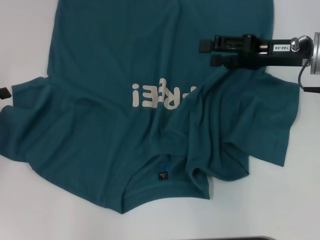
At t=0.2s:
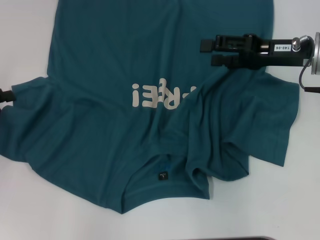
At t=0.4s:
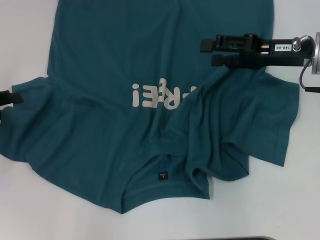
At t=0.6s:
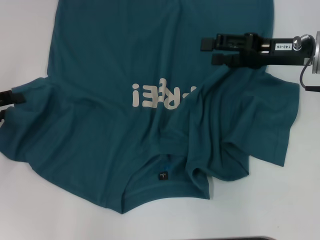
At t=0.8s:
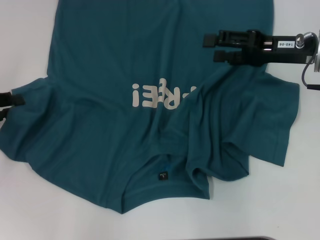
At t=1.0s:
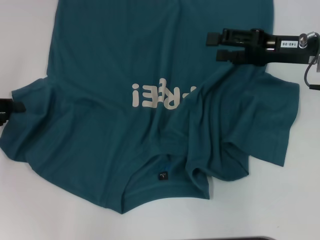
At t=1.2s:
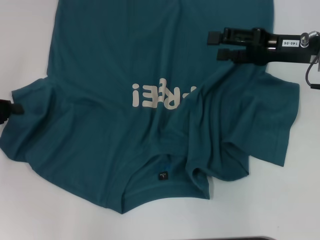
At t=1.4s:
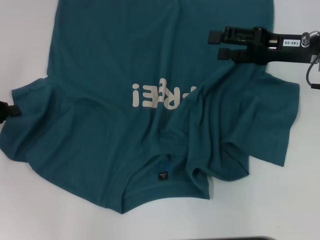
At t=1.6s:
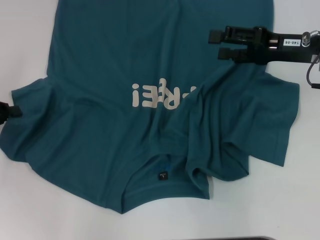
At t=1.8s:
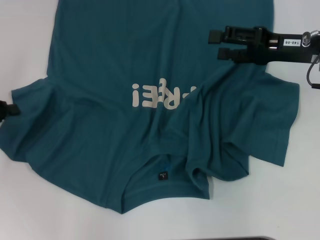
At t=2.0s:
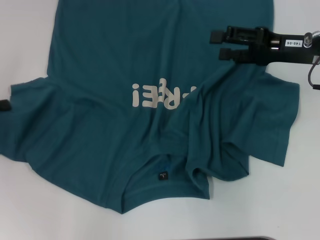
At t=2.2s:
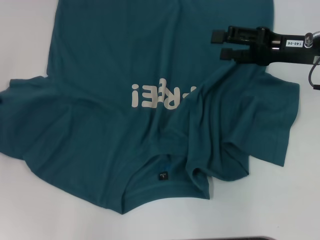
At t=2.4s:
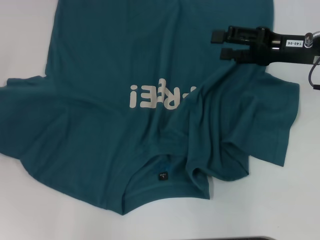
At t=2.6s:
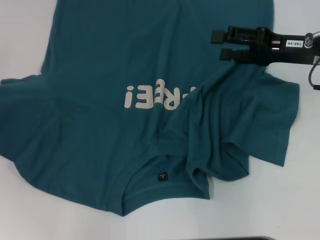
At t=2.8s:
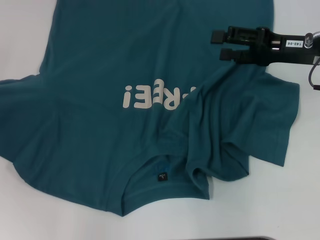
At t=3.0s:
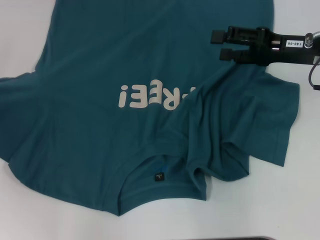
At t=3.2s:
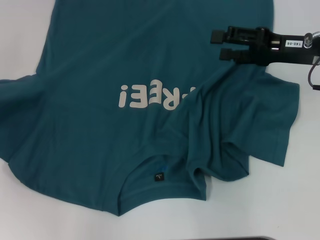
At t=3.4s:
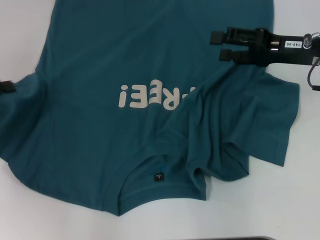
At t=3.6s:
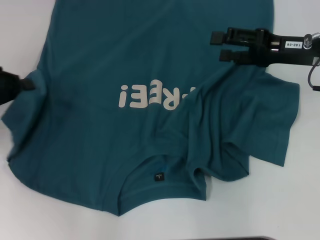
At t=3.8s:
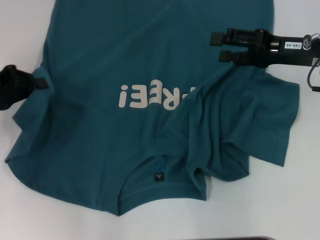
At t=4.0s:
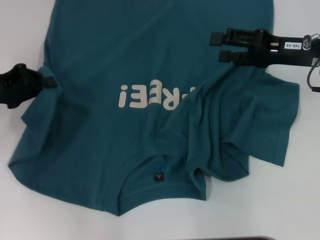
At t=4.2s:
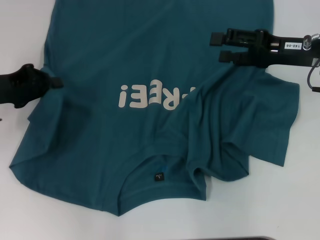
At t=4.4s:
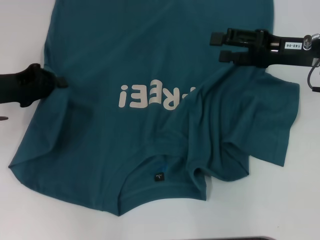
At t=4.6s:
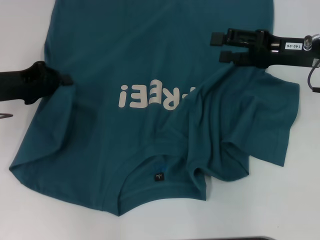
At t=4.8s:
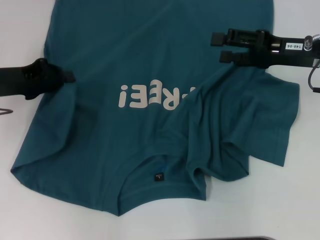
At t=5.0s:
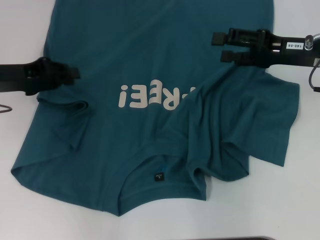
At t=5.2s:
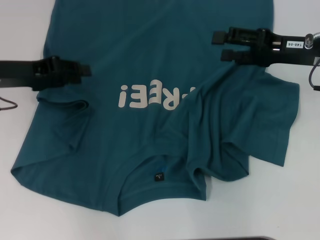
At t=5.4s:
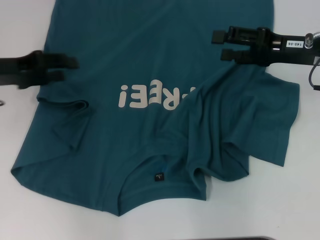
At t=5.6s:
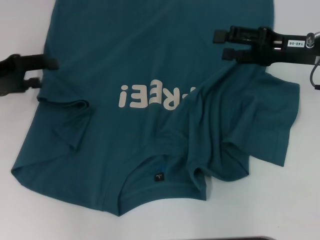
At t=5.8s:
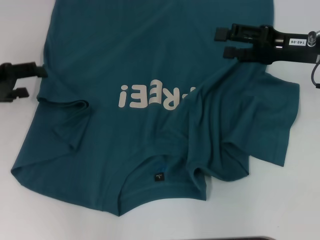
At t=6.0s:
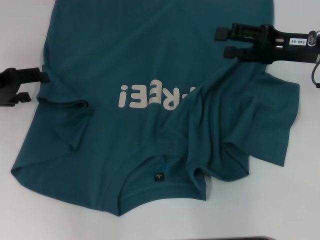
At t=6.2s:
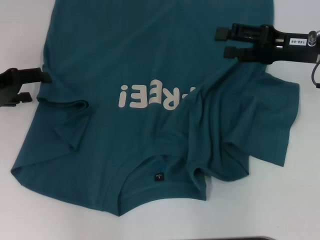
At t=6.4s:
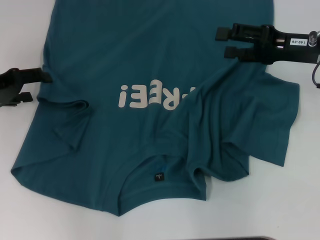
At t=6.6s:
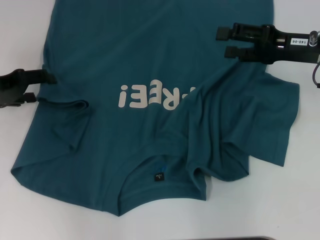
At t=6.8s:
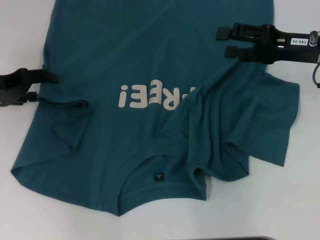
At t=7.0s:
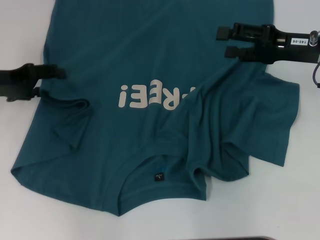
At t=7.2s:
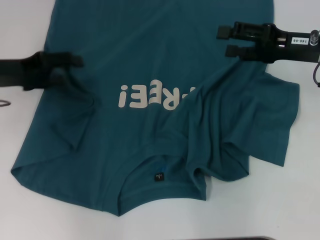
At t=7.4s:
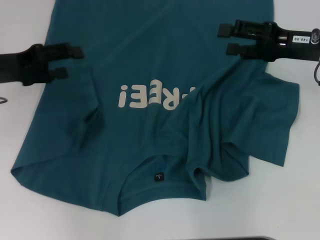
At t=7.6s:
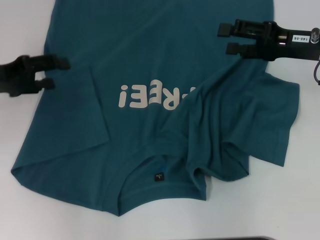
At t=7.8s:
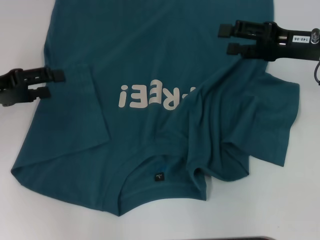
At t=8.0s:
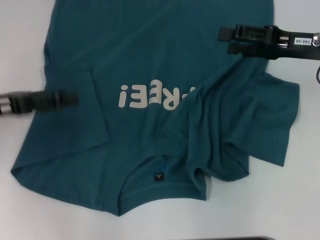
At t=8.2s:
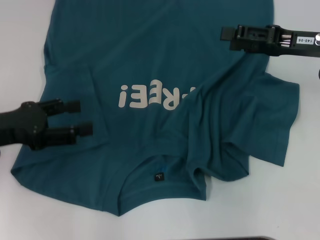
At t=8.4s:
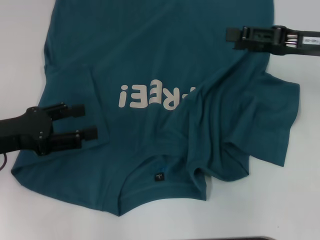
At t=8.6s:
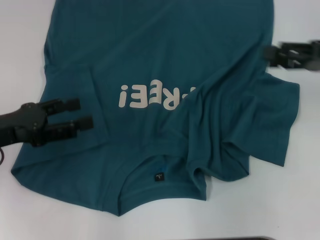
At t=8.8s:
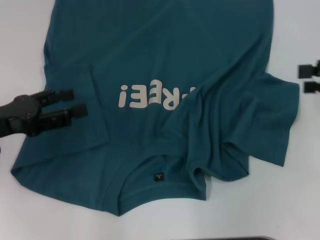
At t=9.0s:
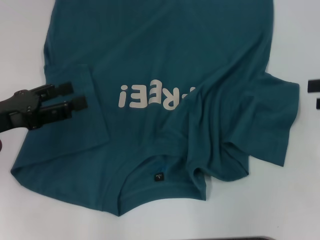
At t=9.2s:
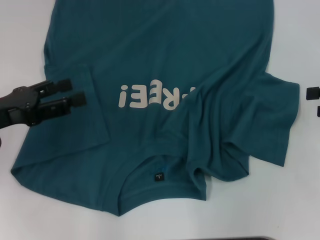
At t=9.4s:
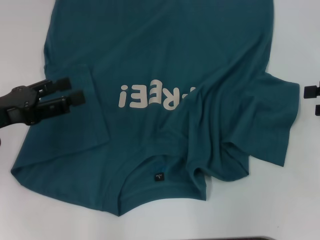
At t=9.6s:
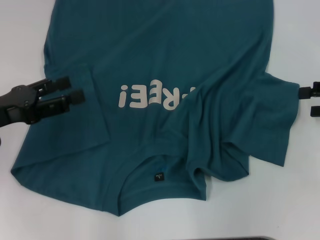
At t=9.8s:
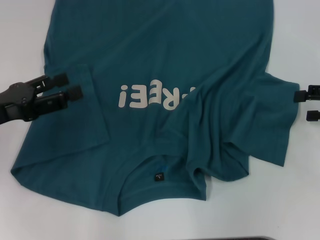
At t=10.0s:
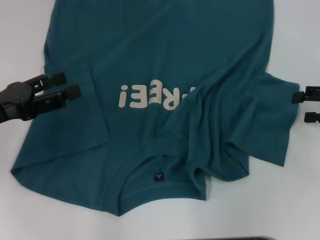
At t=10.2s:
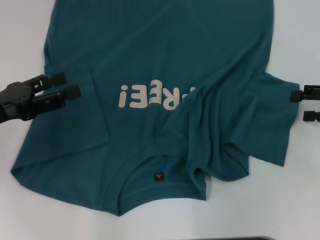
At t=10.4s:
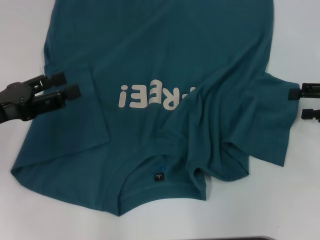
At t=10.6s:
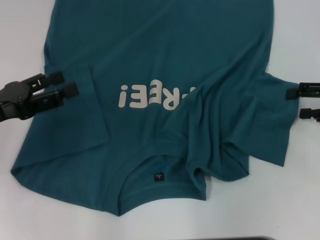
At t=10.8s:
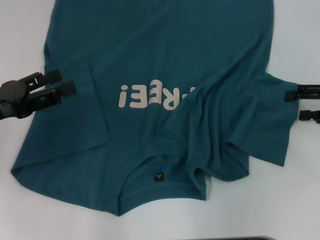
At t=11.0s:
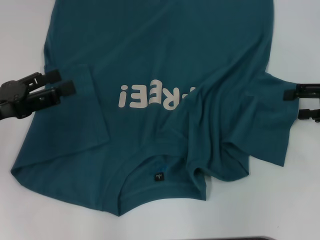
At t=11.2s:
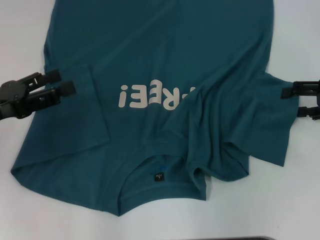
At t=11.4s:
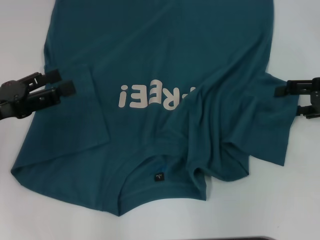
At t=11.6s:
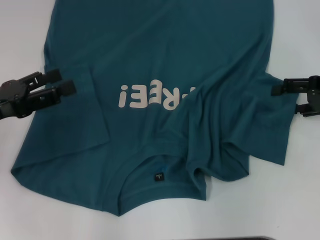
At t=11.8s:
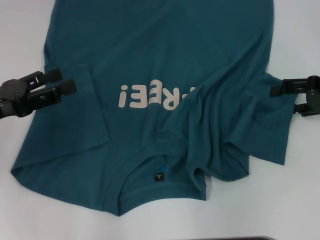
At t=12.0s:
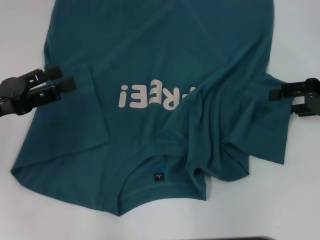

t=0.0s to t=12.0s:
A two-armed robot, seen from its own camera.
Step, t=0.0s to t=5.2s: Fold the bottom left sleeve with your left hand.
t=0.0s to t=1.6s: The left gripper closes its fingers.
t=1.6s to t=3.0s: The left gripper changes place by about 5 cm.
t=3.0s to t=4.4s: The left gripper is displaced to the right by roughly 10 cm.
t=4.4s to t=6.0s: The left gripper opens.
t=6.0s to t=7.6s: The grippers move only a little.
t=7.6s to t=9.0s: The right gripper goes roughly 15 cm to the right and backward, while the left gripper moves backward, some 5 cm.
t=9.0s to t=10.4s: The grippers make only small movements.
t=10.4s to t=12.0s: The grippers make only small movements.

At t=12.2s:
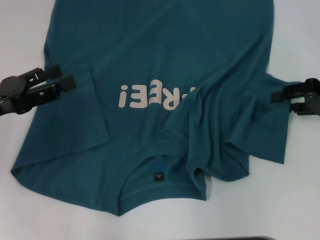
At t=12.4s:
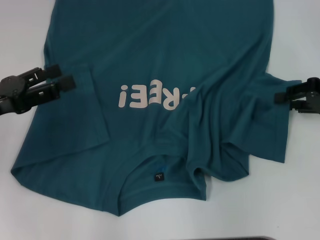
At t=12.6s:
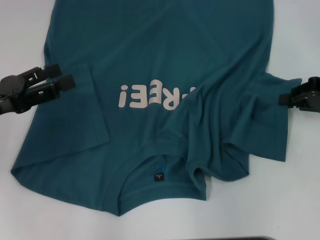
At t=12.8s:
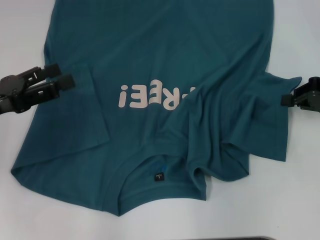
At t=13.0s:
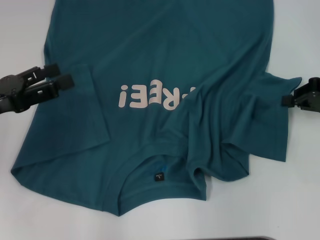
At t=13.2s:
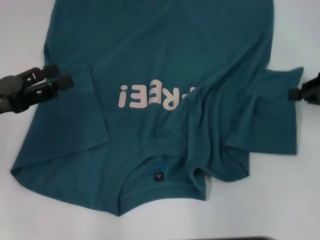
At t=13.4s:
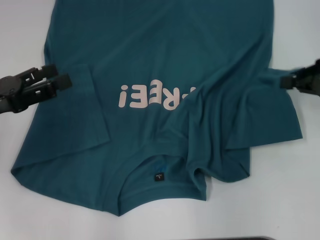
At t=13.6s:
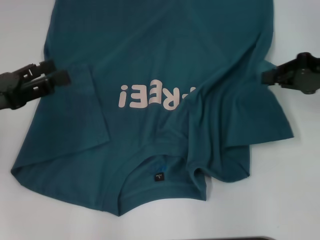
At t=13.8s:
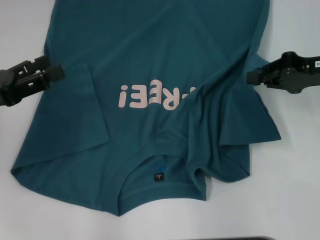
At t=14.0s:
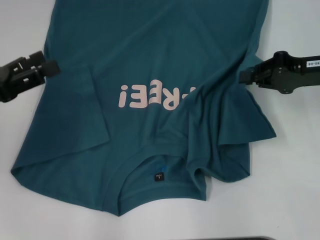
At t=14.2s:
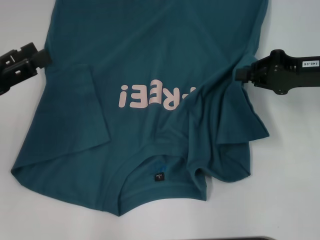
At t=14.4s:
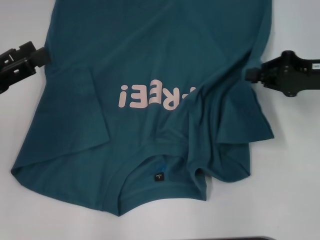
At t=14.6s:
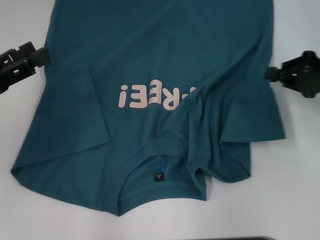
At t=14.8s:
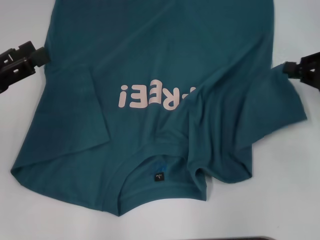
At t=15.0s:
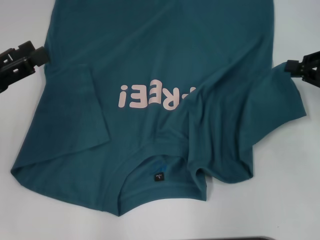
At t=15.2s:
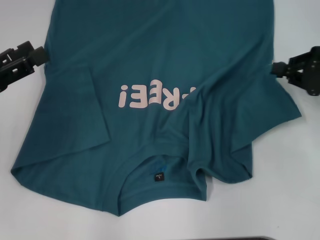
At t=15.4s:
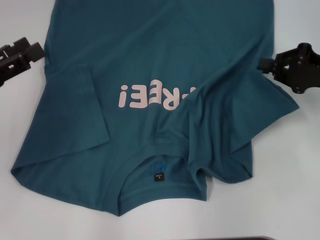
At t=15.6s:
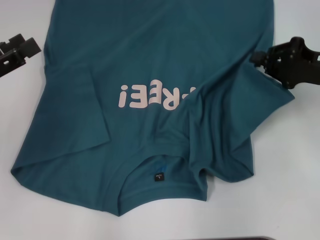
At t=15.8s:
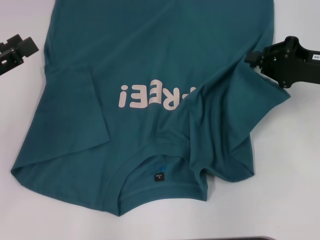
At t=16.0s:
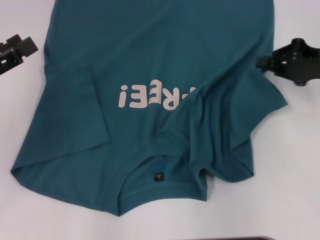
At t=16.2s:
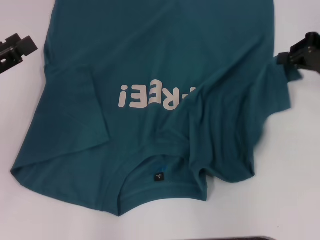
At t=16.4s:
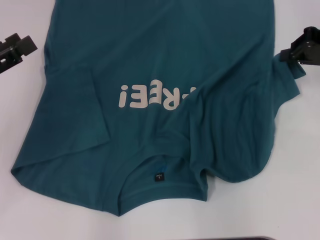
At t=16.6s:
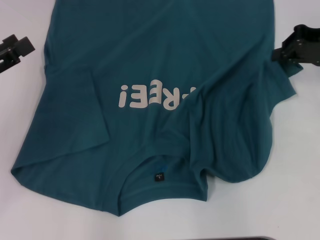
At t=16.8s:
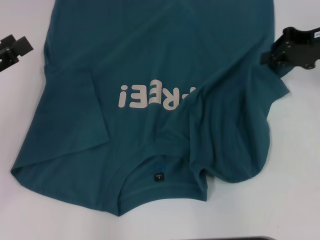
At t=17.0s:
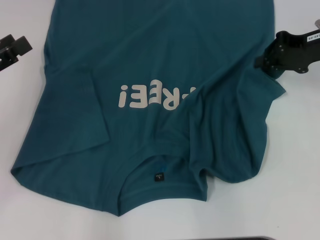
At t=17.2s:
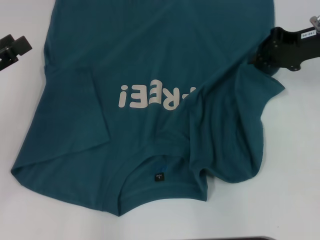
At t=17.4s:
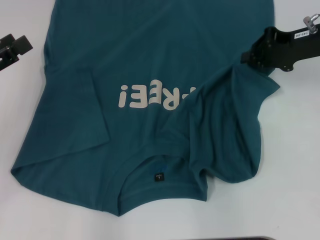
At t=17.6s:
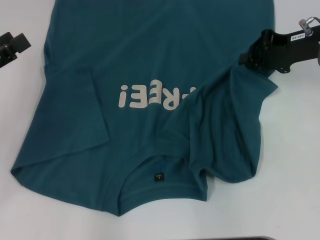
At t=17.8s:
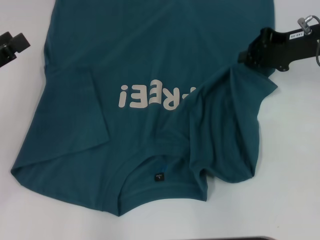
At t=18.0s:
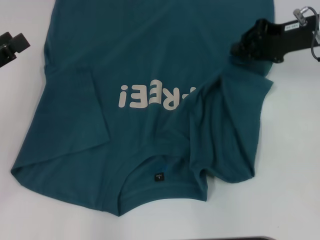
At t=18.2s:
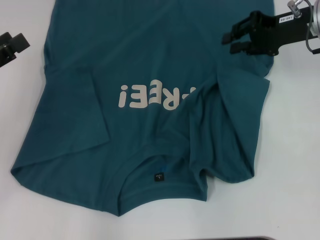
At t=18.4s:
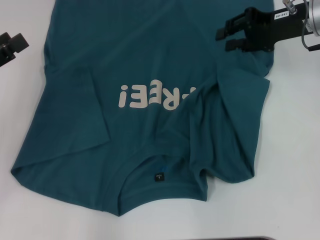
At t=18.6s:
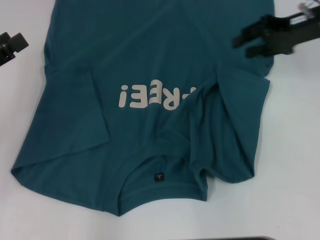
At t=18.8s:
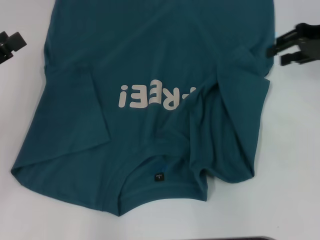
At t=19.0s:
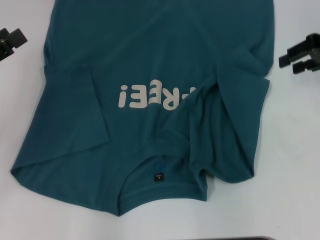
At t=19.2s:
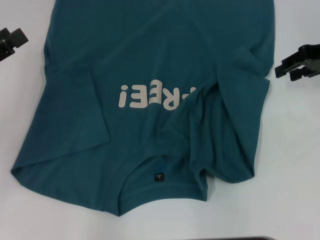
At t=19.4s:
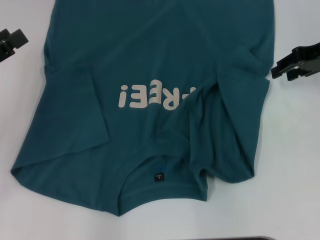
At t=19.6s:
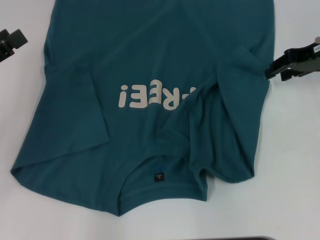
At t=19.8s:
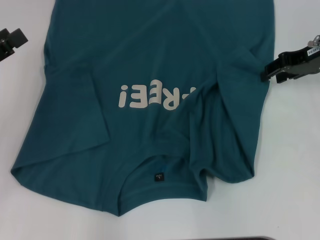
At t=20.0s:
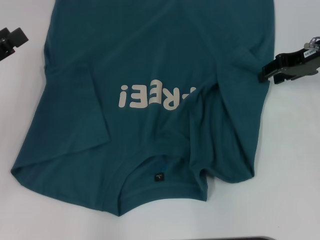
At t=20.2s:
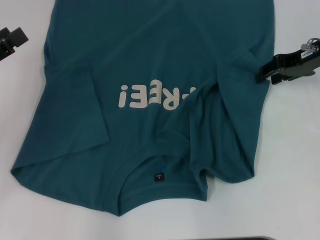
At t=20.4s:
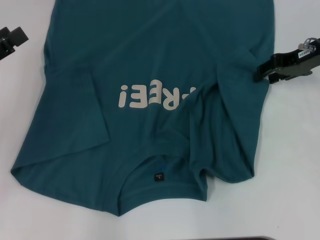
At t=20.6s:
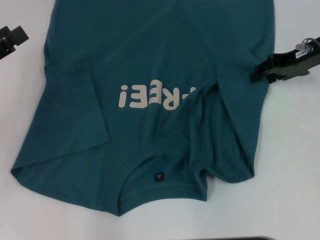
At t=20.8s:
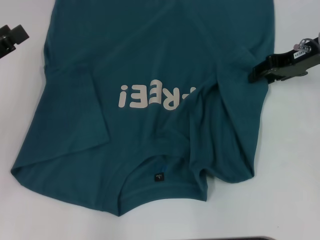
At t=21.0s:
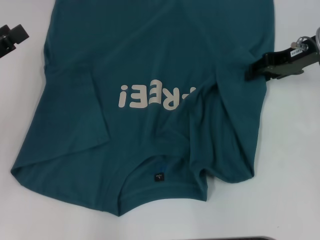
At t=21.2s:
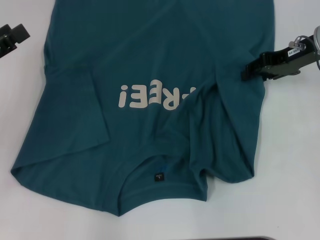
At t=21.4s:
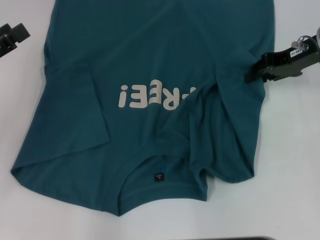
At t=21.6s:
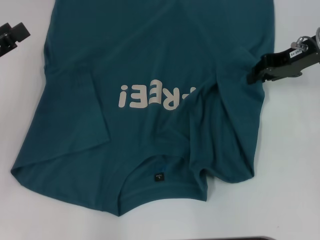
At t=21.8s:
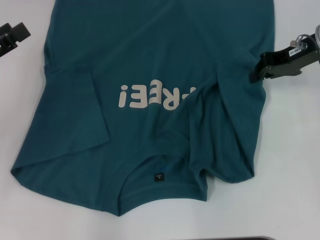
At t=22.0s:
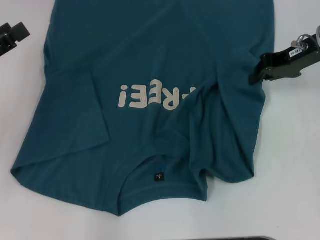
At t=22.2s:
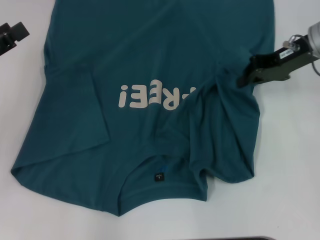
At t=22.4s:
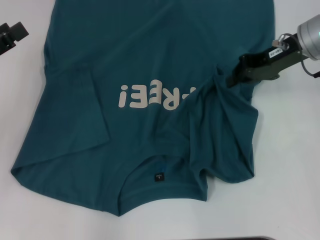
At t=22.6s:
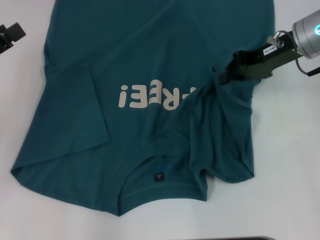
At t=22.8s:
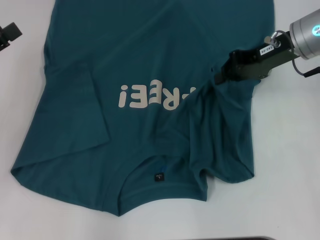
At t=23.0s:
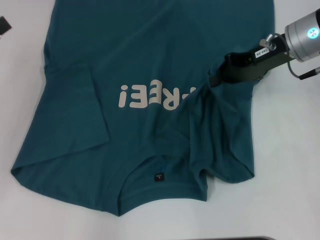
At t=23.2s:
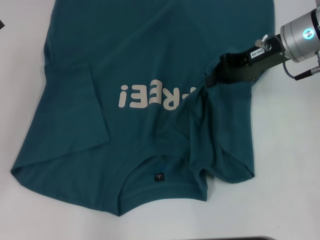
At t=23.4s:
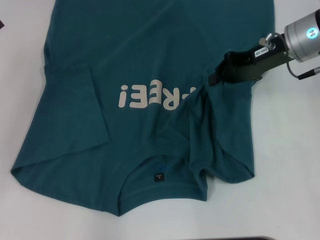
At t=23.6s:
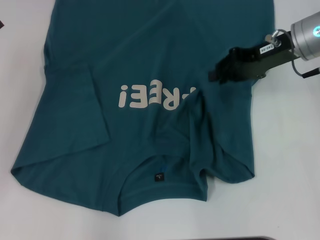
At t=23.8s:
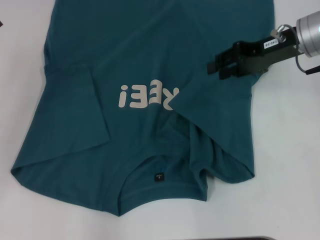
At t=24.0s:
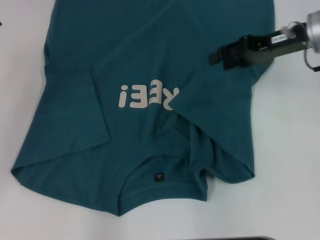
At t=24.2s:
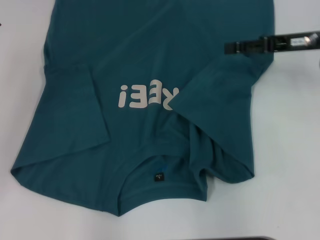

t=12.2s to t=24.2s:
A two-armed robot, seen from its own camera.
Step, t=12.2s to t=24.0s: Fold the bottom right sleeve to the right.
t=12.2s to t=13.8s: The right gripper ends up some 5 cm from where it was, and closes up.
t=13.8s to t=15.2s: The grippers move only a little.
t=15.2s to t=16.6s: The right gripper shifts about 10 cm forward and upward.
t=16.6s to t=18.2s: The right gripper travels to the left by about 5 cm.
t=18.2s to t=19.8s: The right gripper opens.
t=19.8s to t=21.2s: The grippers stay close to where they were, moving slightly.
t=21.2s to t=22.6s: The right gripper closes.
t=22.6s to t=24.2s: The right gripper heads to the right, covering some 5 cm, and opens up.
